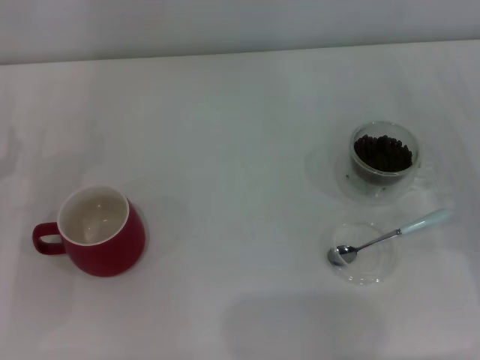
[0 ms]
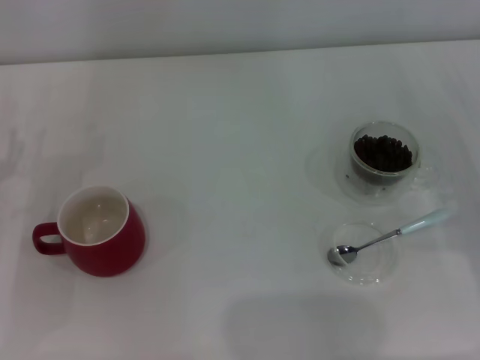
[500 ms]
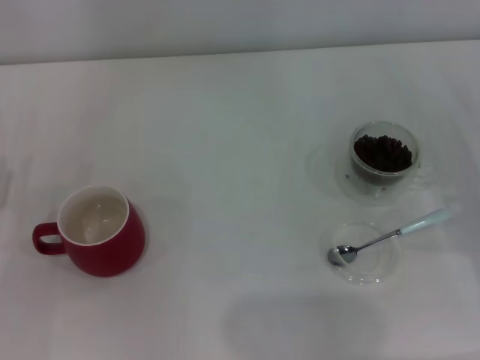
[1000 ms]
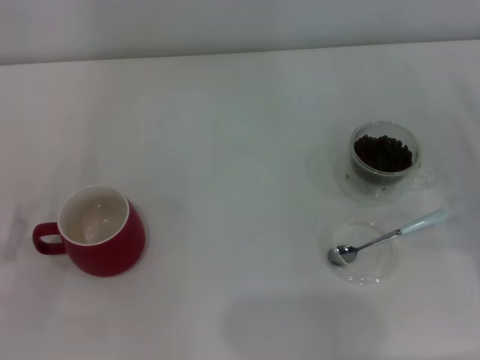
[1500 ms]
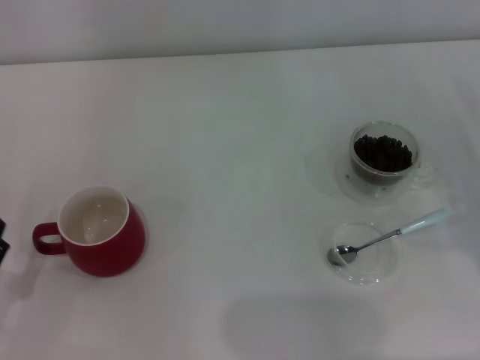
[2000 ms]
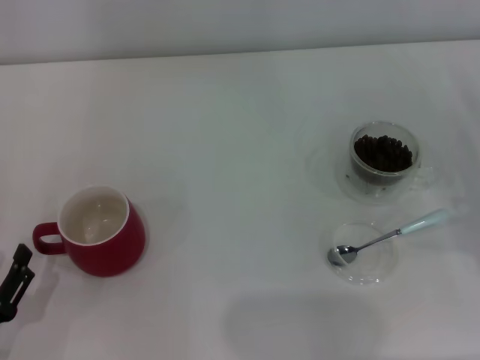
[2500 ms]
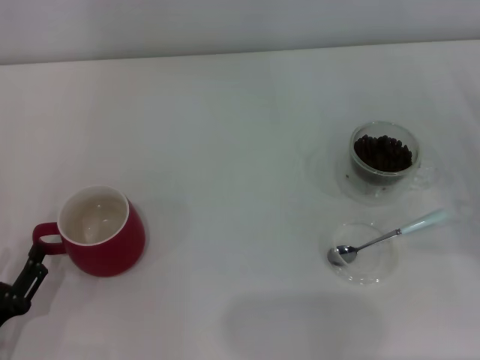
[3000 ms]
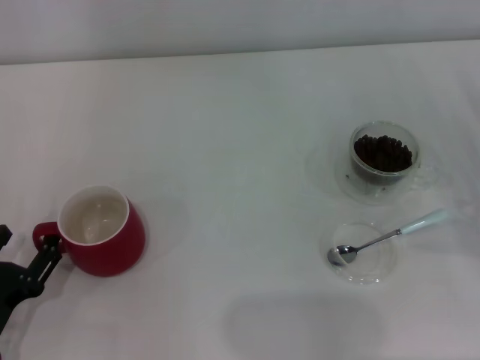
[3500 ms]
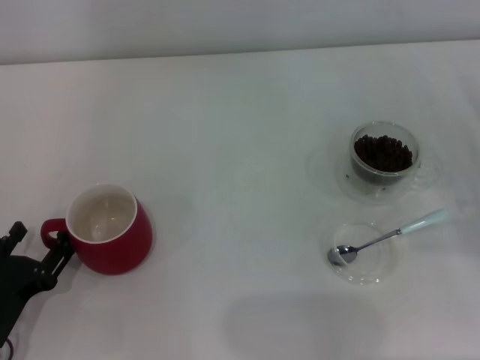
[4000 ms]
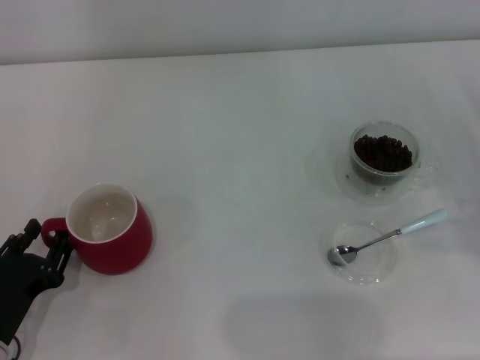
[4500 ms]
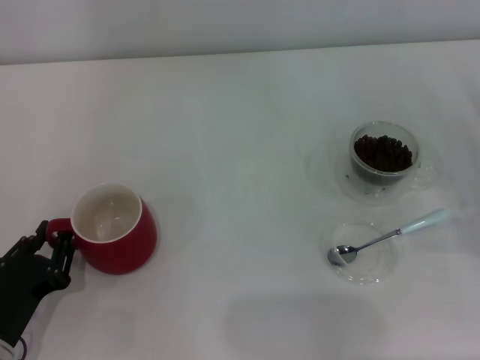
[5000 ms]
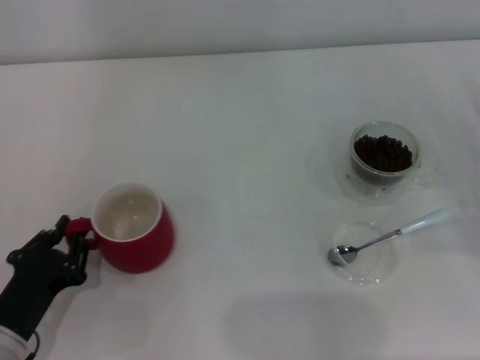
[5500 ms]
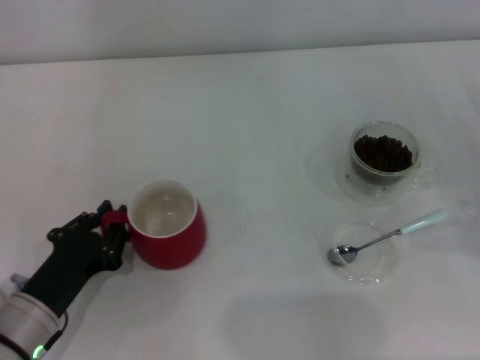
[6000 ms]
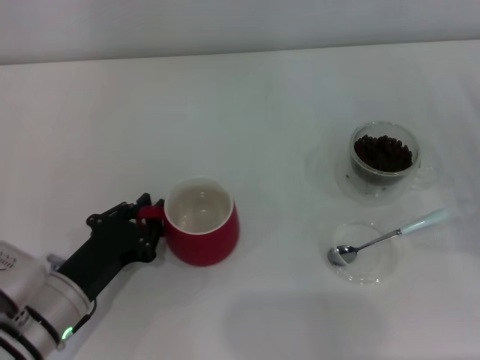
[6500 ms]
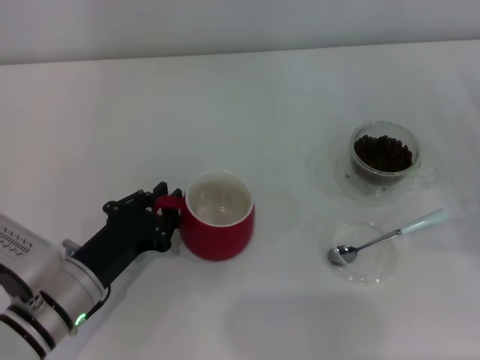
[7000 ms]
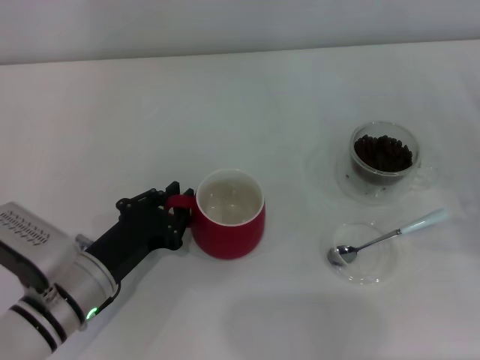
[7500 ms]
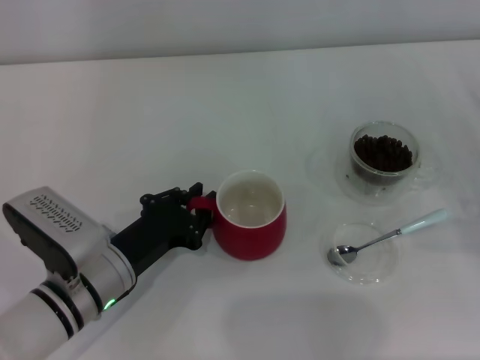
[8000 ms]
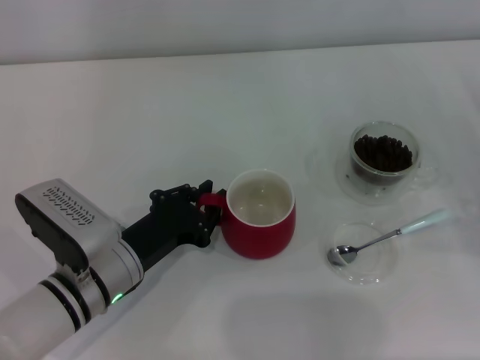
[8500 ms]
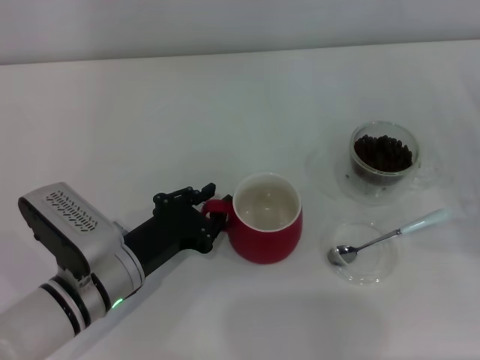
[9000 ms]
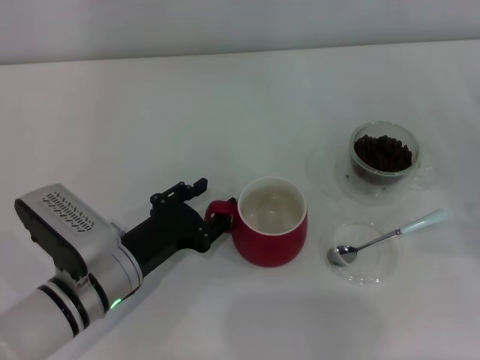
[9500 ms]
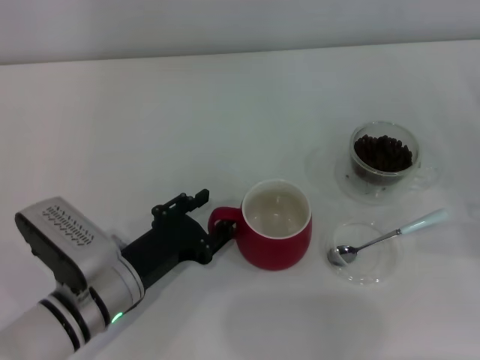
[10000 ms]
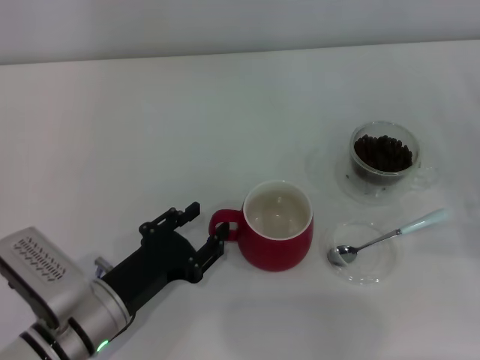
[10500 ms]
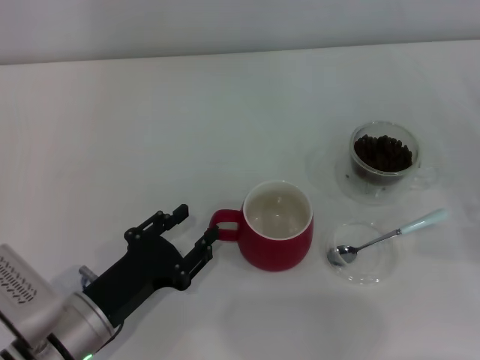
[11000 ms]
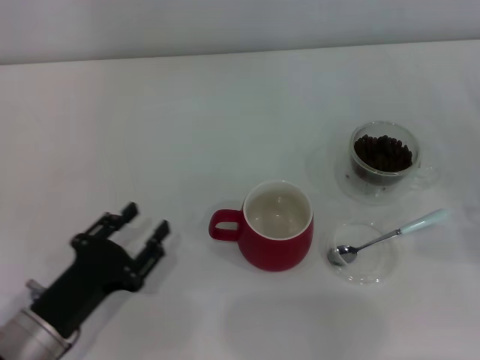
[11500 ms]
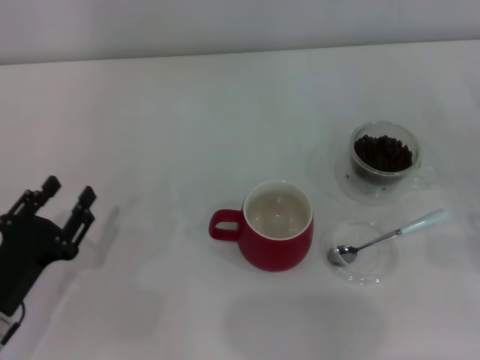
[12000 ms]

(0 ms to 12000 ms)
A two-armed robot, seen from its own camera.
Task of the whole recording: Use a blue spoon to take out the coffee beans from the glass and pour them into the red cup.
Step, 0 ms - 11500 ms: Move the cup to the center of view with the left gripper.
2000 ms - 4000 ms: There are only small adjustments of the grippers.
4000 ms - 6000 ms: The left gripper changes place by approximately 5 cm, and closes up.
6000 ms - 8000 ms: The left gripper shifts about 5 cm to the right.
8000 ms - 10000 ms: The left gripper opens up.
10000 ms - 12000 ms: The left gripper shifts roughly 10 cm to the left.

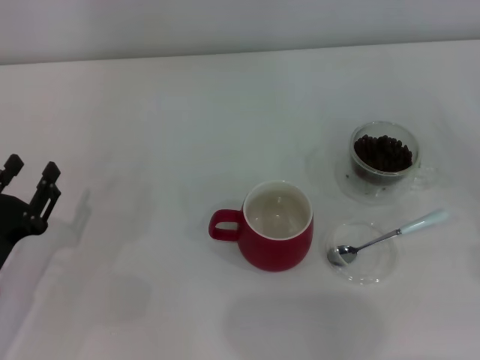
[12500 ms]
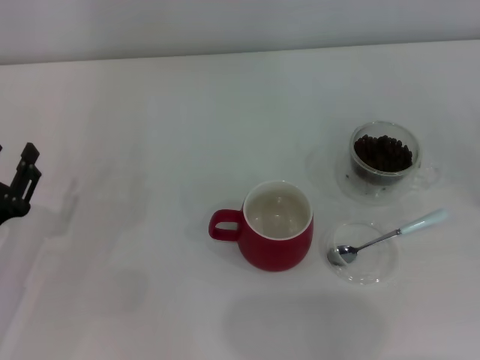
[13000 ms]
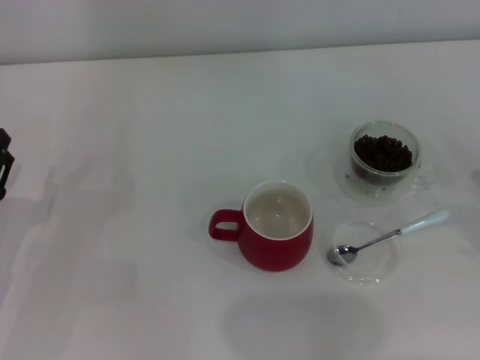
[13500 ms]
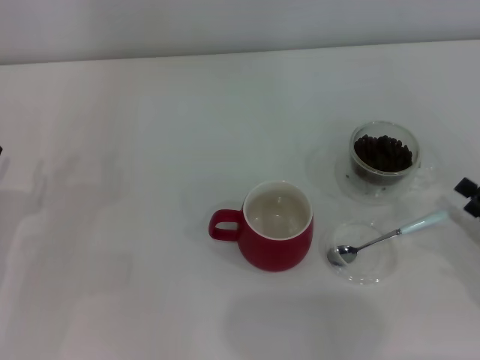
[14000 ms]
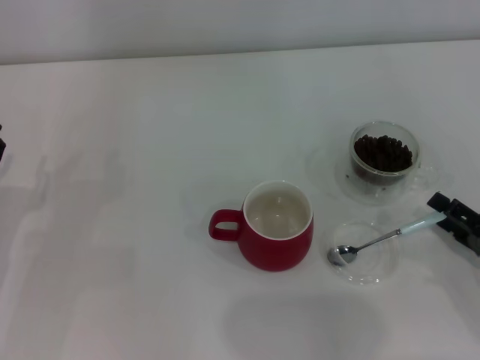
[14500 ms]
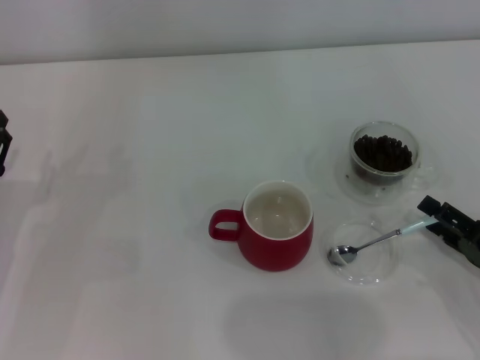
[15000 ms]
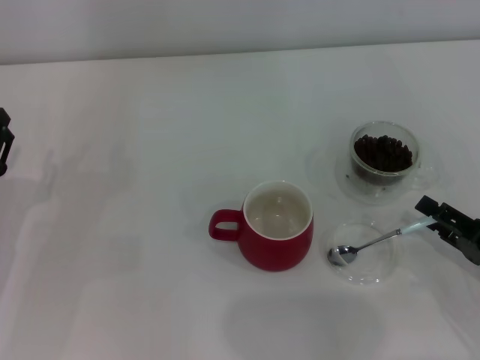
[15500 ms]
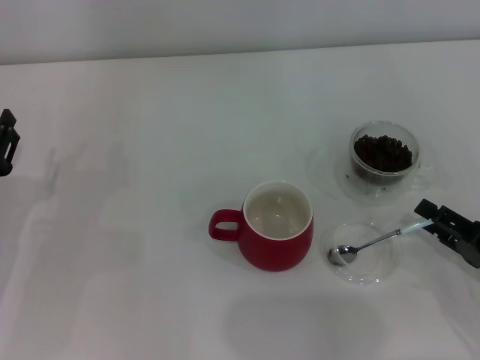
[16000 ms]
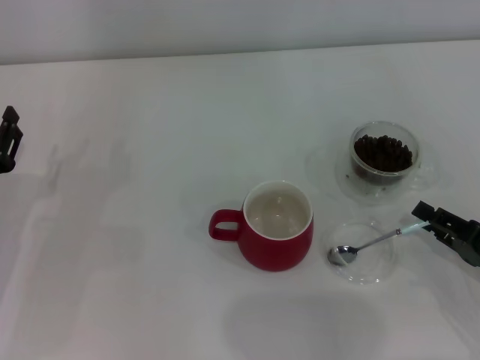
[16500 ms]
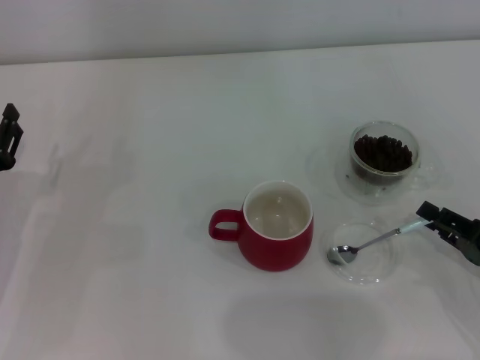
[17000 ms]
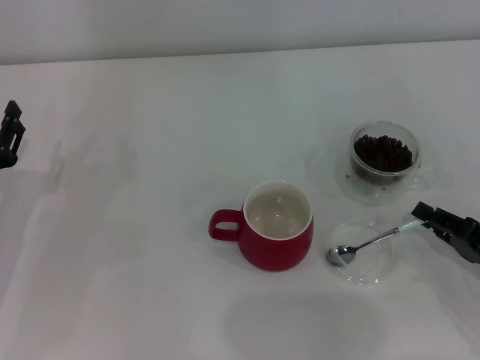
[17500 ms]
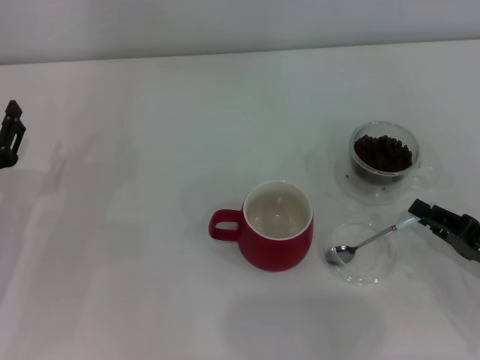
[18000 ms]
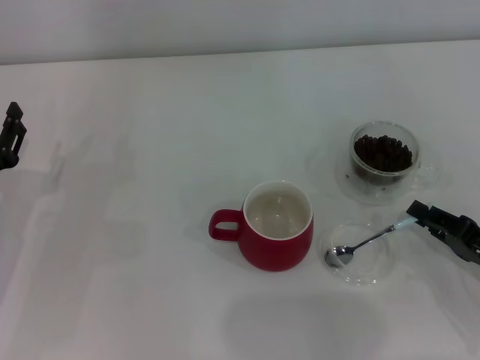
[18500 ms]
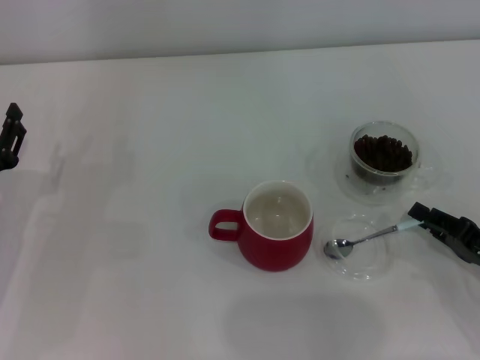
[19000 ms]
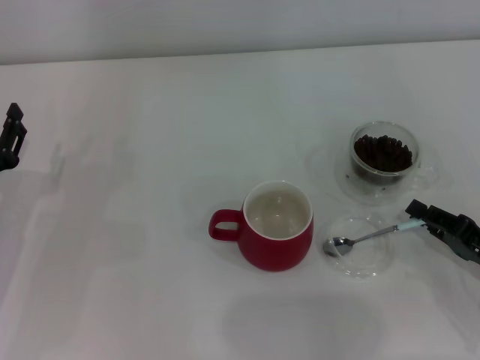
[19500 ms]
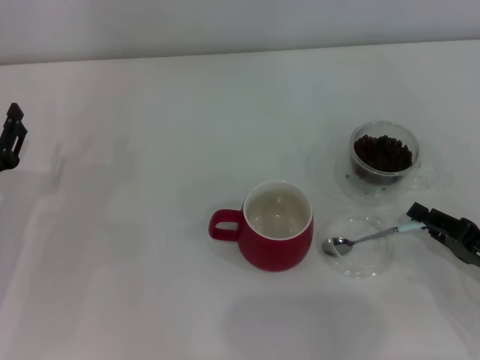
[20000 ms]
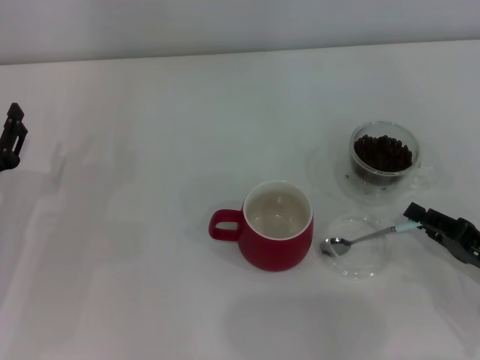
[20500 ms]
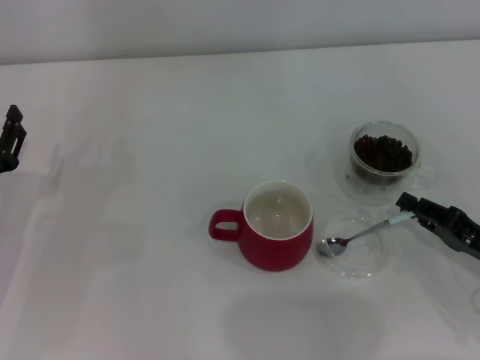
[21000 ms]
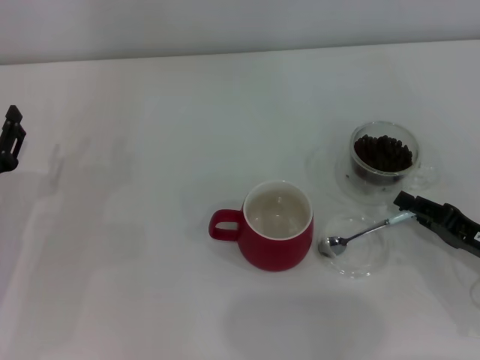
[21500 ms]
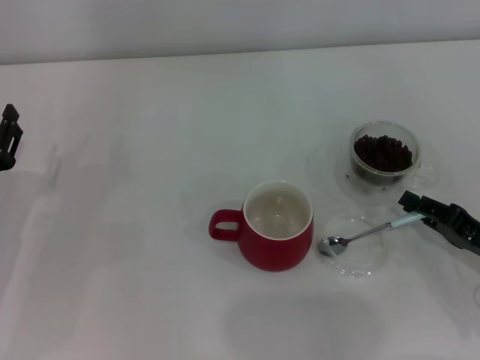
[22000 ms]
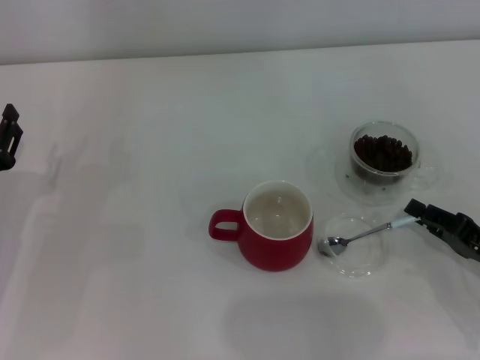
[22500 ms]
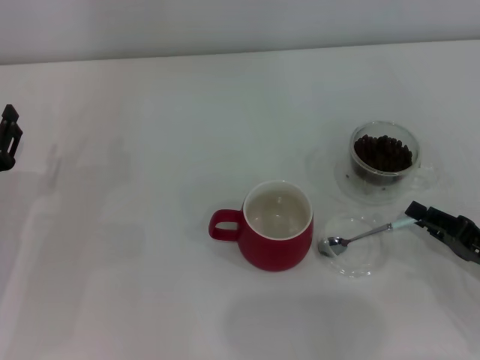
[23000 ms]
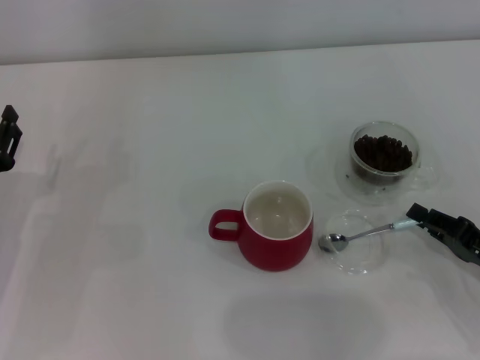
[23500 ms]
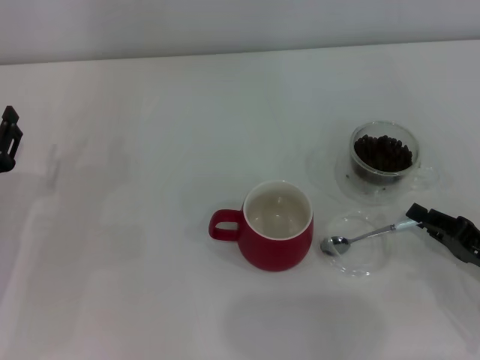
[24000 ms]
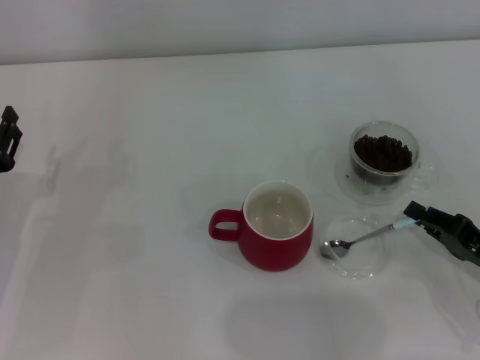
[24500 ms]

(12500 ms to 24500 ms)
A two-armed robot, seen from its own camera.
Task of the whole recording: Use a blue spoon to take out the coffee beans from the glass and pour them into the red cup.
12500 ms - 14500 ms: The right gripper moves to the left, about 5 cm.
14500 ms - 16500 ms: The grippers make only small movements.
16500 ms - 18500 ms: The right gripper closes.
18500 ms - 20500 ms: Both grippers stay about where they are.
20500 ms - 22500 ms: The grippers move only a little.
22500 ms - 24500 ms: Both grippers stay put.

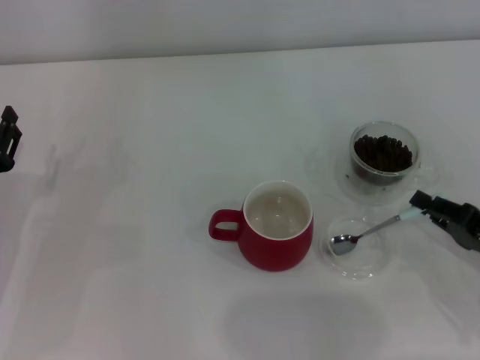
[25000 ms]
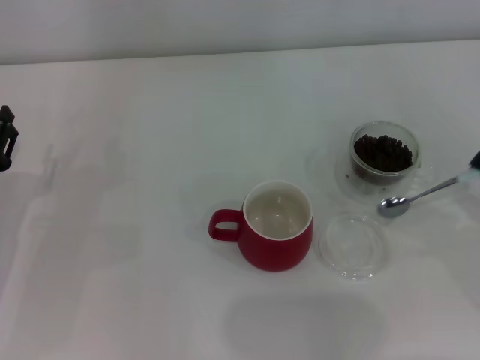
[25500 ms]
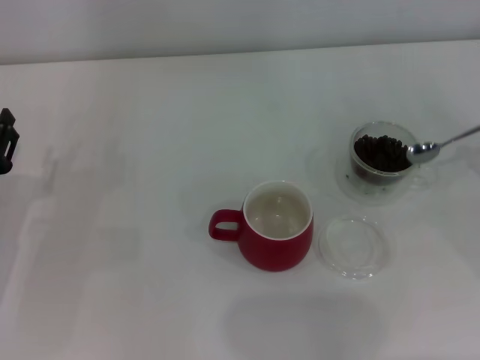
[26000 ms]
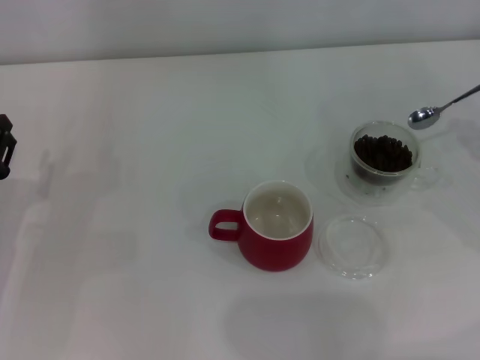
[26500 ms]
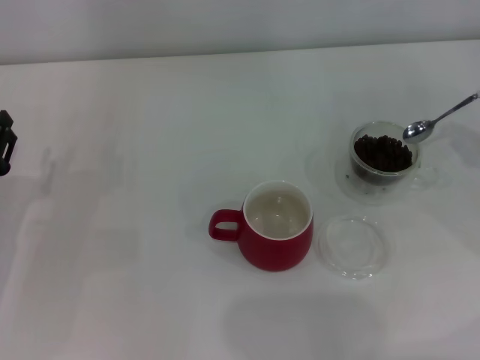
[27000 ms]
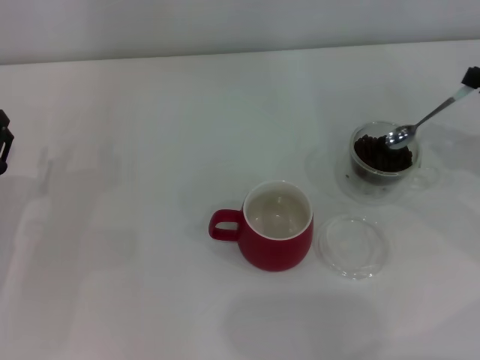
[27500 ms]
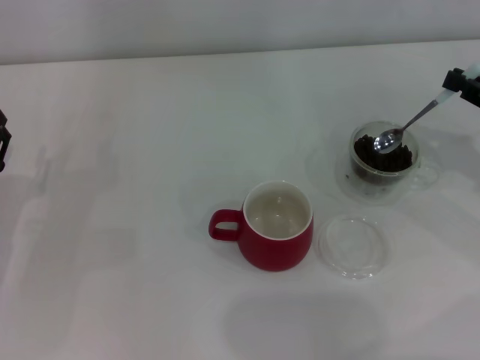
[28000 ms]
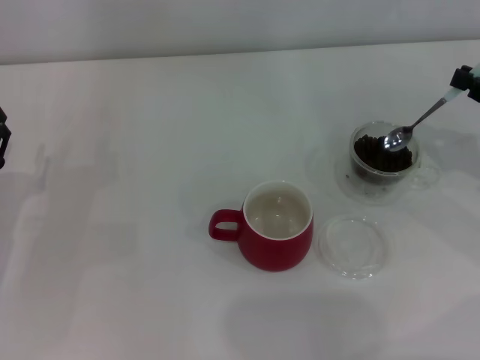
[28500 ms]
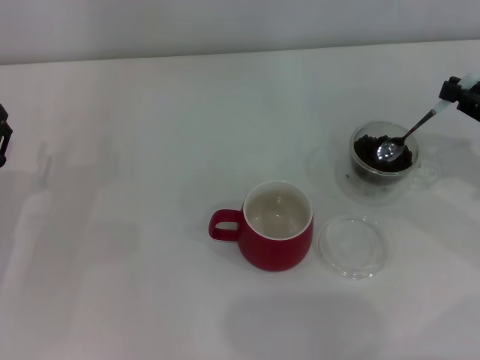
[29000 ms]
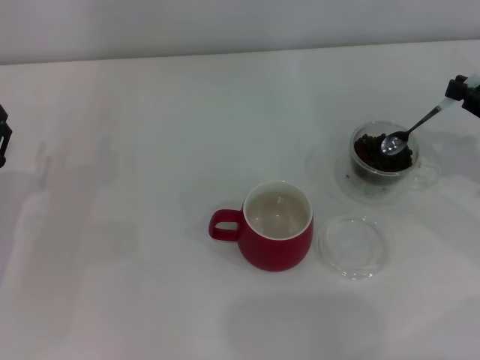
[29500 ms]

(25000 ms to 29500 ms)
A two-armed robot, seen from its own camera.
Task of the whole recording: Use a blue spoon to take out the coffee beans from the glass and pour them into the red cup.
25000 ms - 27000 ms: The right gripper heads upward, forward and to the right, covering some 15 cm.
